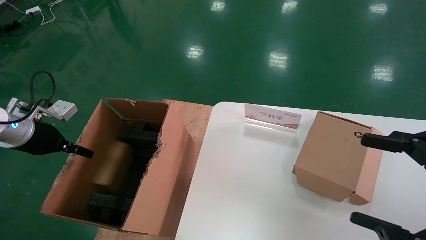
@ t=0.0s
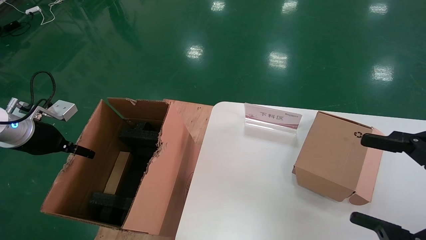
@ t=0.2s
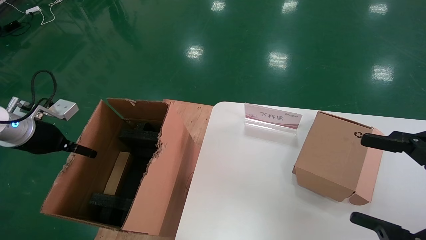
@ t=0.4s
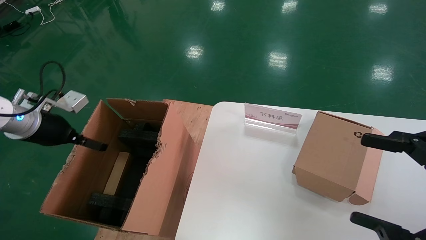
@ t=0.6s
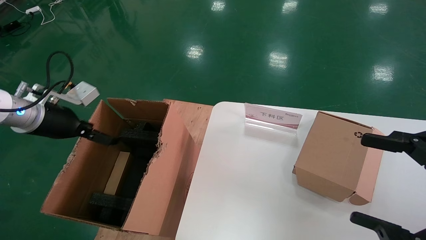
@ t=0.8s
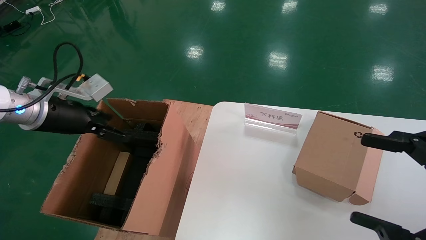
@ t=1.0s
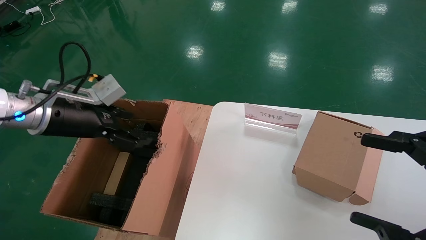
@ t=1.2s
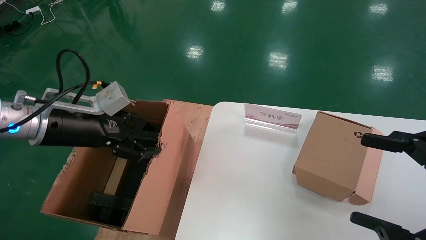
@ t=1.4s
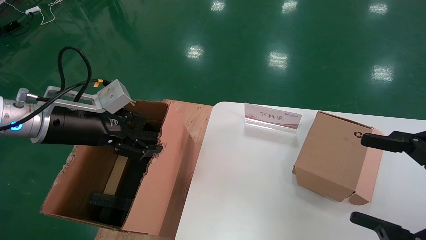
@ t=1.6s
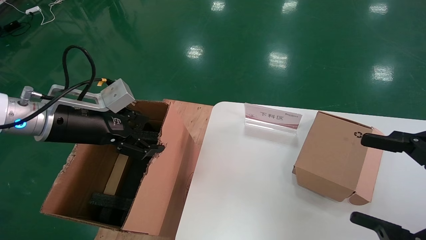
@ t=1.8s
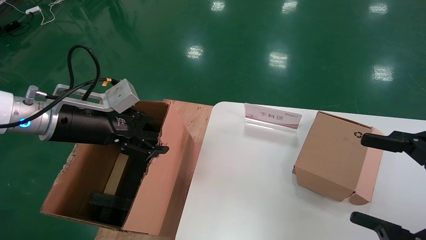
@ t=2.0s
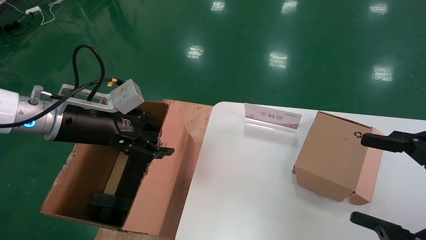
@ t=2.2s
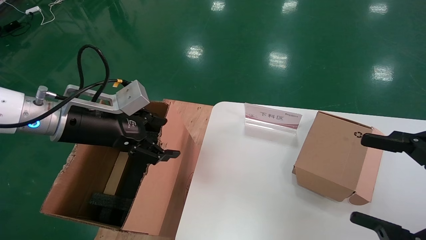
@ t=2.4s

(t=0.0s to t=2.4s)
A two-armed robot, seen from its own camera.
Task of the whole recording: put the box on the table into the big box.
t=0.0s - t=1.2s: The left gripper moves to the right, about 10 cm, and opens its fingers.
t=1.2s - t=2.4s: The left gripper travels to the right by some 5 cm.
